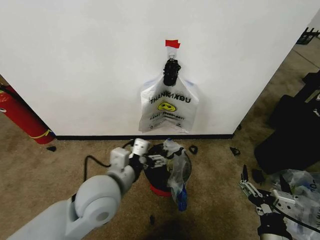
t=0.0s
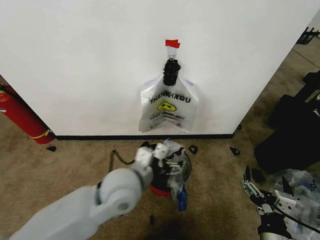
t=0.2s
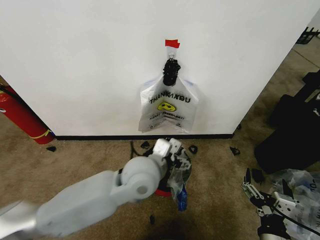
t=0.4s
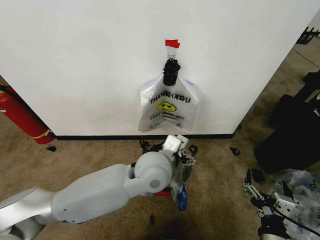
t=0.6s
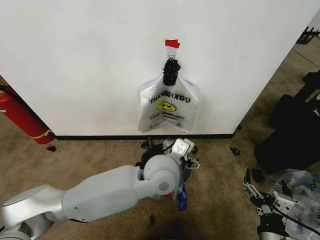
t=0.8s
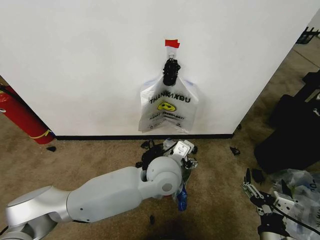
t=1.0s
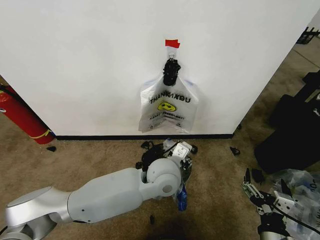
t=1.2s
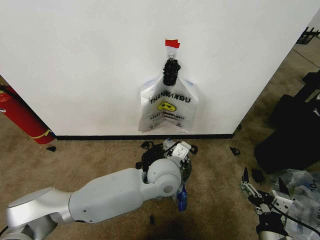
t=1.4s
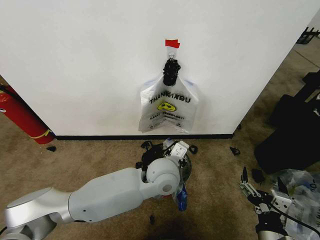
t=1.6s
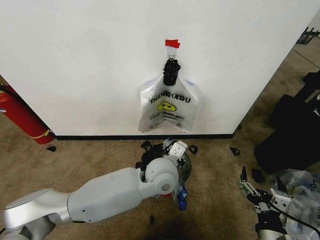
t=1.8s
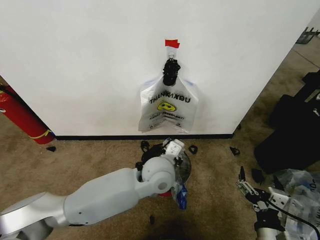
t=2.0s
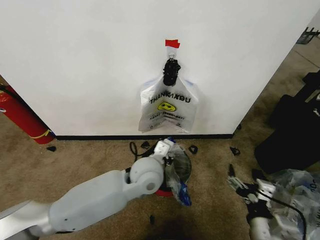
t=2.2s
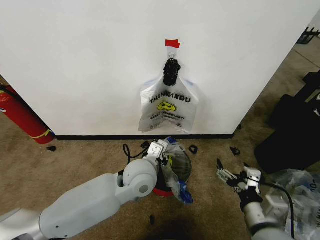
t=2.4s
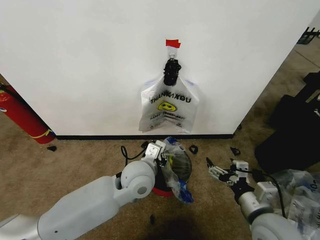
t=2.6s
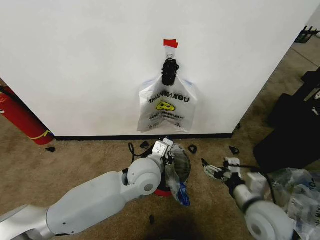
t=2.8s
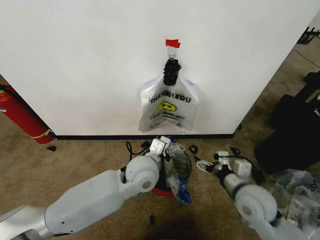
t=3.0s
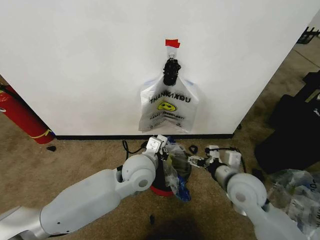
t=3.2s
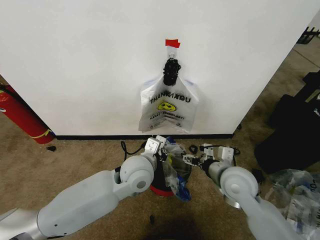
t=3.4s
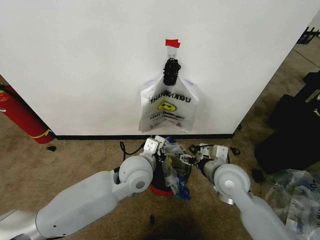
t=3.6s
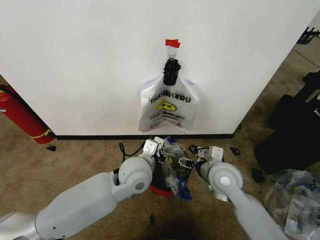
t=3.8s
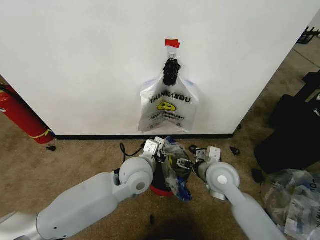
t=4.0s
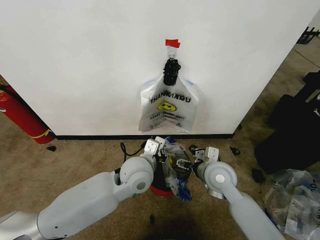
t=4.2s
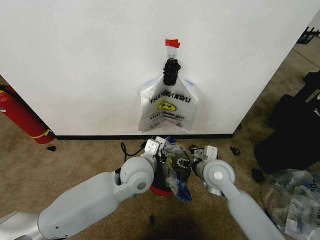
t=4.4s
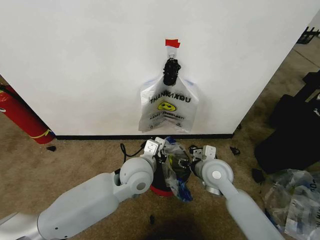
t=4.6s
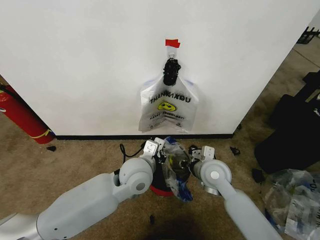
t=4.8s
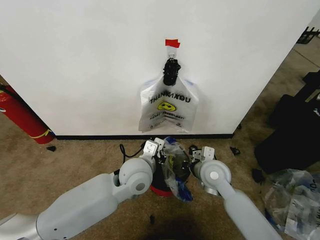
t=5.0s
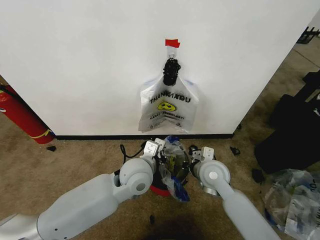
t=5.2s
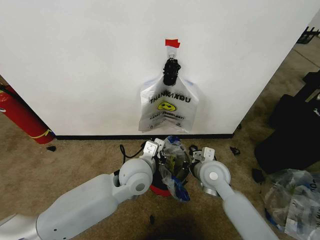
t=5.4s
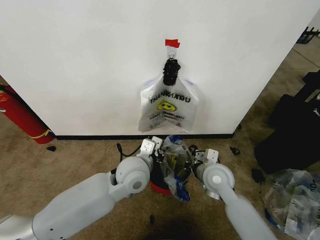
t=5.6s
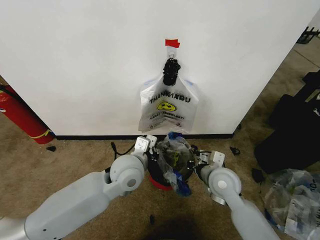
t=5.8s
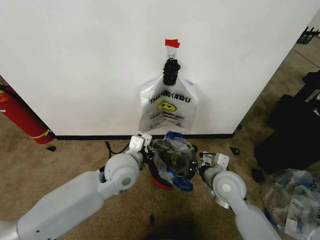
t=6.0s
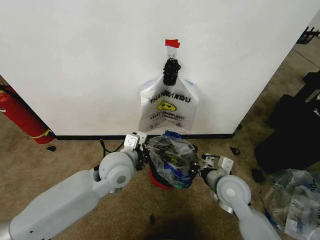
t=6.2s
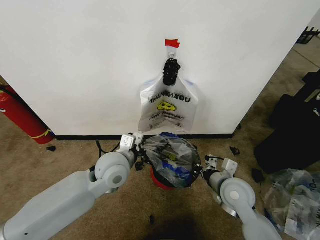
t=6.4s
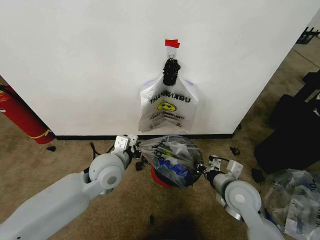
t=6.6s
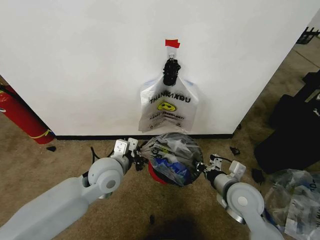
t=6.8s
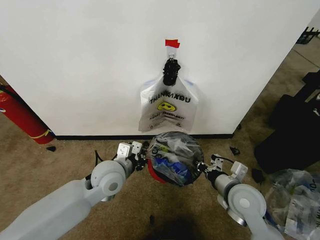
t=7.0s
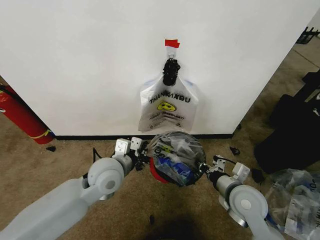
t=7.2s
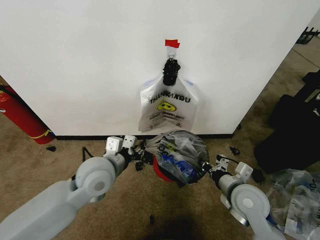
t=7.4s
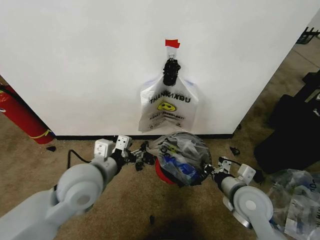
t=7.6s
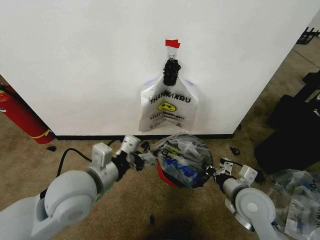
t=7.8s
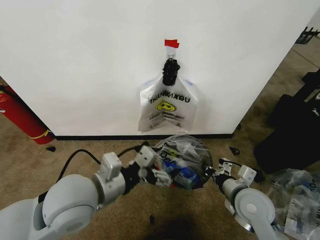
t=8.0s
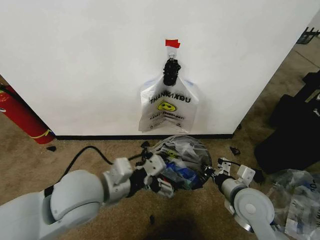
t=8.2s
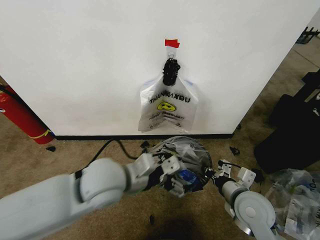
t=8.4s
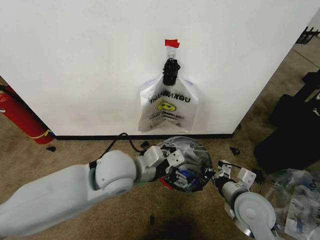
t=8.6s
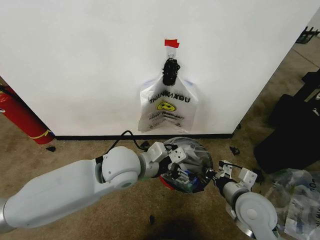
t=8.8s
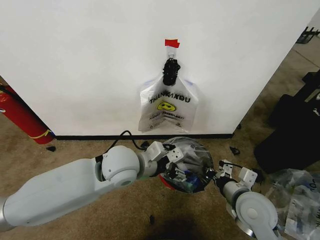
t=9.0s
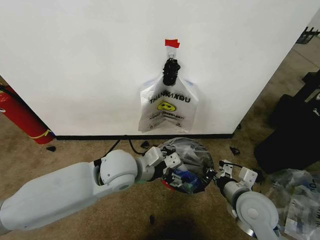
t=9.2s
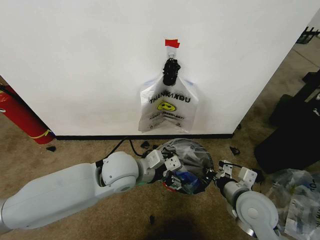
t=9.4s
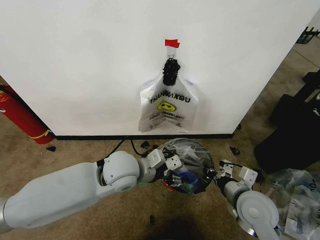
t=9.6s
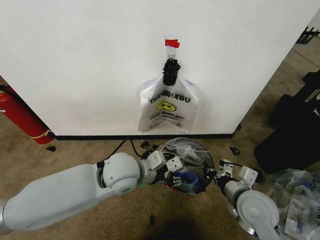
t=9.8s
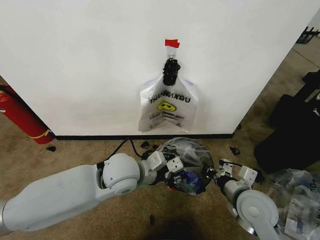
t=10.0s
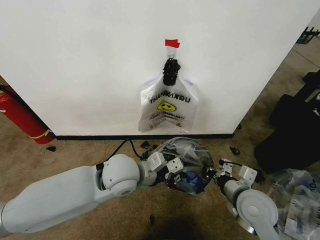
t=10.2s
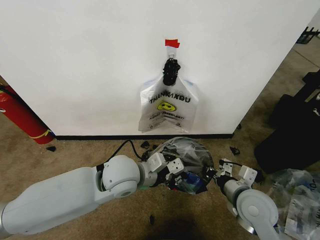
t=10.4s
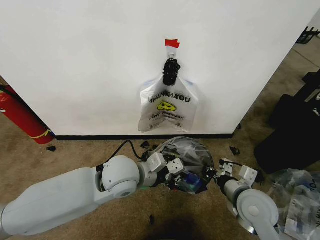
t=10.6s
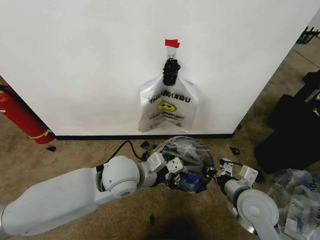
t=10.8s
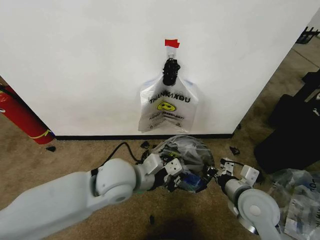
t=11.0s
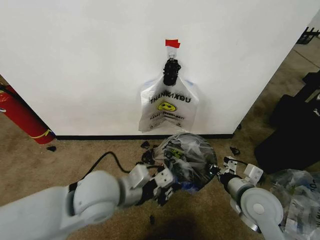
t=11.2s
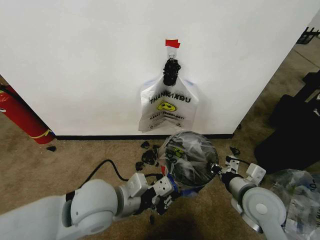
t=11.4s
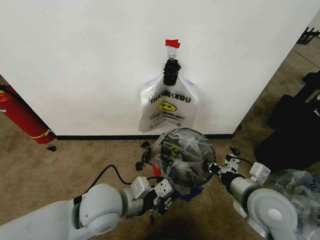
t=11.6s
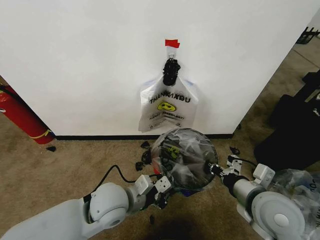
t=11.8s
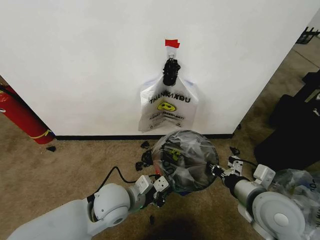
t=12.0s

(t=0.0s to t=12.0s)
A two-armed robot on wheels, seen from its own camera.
Task of the whole recording: Pick up the garbage bag from the wall and place it over the trash bin.
t=0.0s - t=1.6s: The left gripper moves to the right and forward, approximately 15 cm, and closes its fingers.
t=1.6s - t=3.0s: The right gripper travels forward by approximately 15 cm; the left gripper travels to the left by some 5 cm.
t=3.0s - t=4.4s: The right gripper travels forward and to the left by some 10 cm.
t=4.4s - t=6.0s: The right gripper closes up.
t=6.0s - t=7.6s: The right gripper goes approximately 5 cm backward. Meanwhile the left gripper heads to the left and backward, covering roughly 10 cm, and opens up.
t=7.6s - t=9.0s: The left gripper moves to the right and forward, approximately 10 cm.
t=9.0s - t=10.4s: The left gripper closes its fingers.
t=10.4s - t=12.0s: The left gripper moves downward, about 5 cm. The right gripper moves upward, approximately 5 cm.

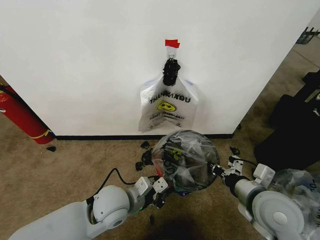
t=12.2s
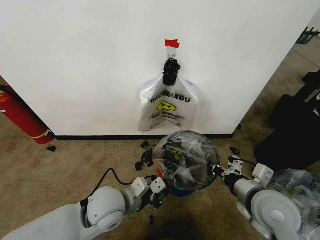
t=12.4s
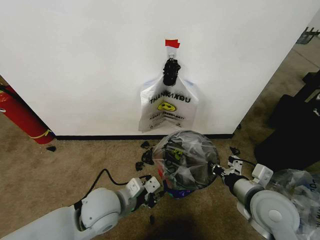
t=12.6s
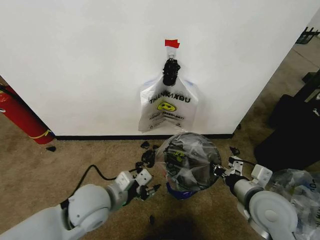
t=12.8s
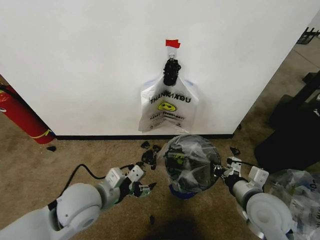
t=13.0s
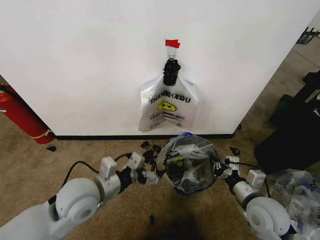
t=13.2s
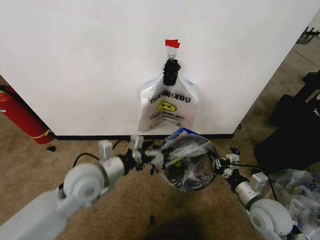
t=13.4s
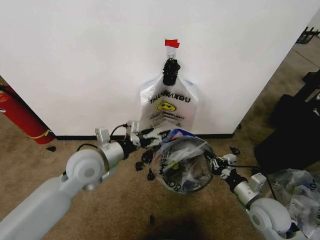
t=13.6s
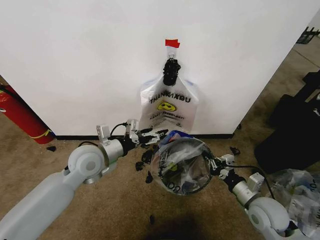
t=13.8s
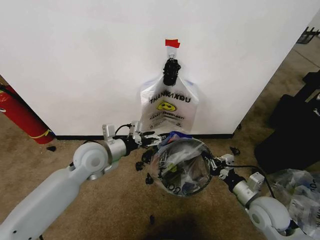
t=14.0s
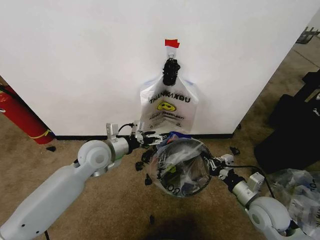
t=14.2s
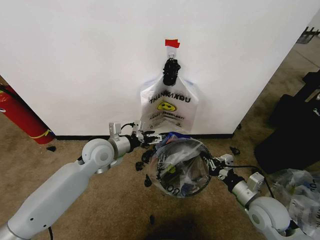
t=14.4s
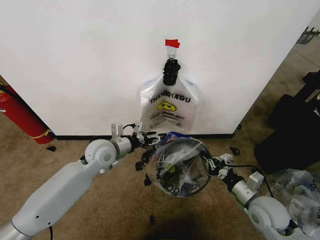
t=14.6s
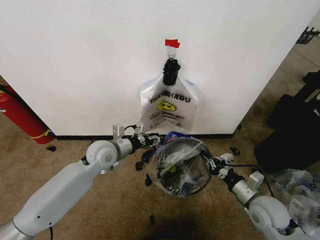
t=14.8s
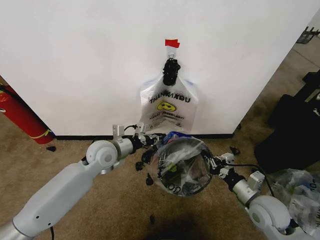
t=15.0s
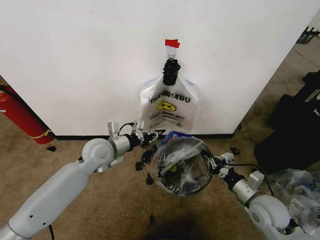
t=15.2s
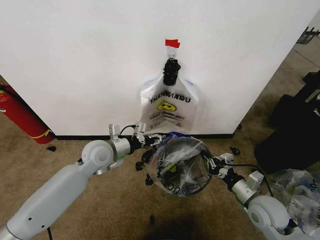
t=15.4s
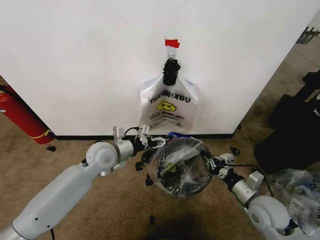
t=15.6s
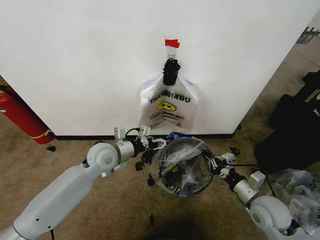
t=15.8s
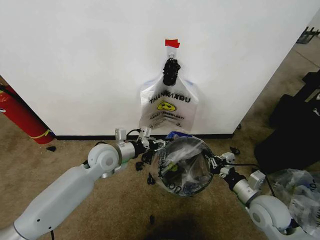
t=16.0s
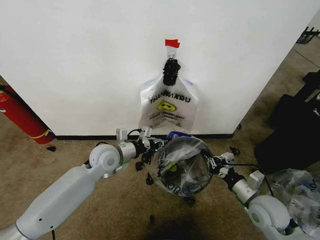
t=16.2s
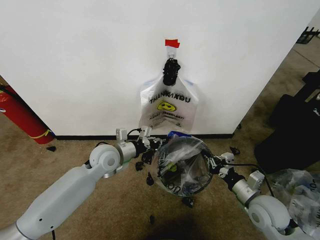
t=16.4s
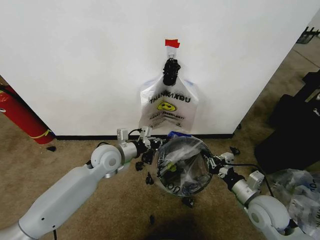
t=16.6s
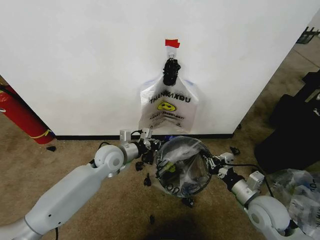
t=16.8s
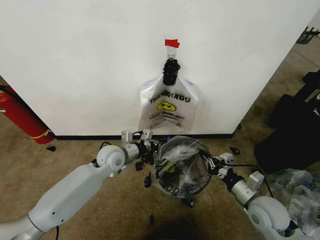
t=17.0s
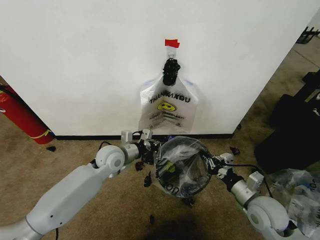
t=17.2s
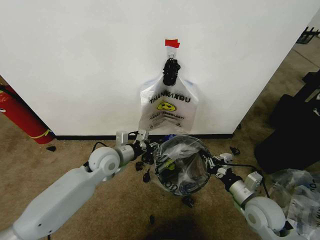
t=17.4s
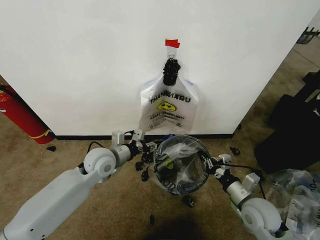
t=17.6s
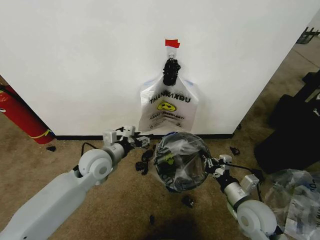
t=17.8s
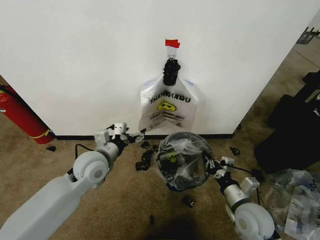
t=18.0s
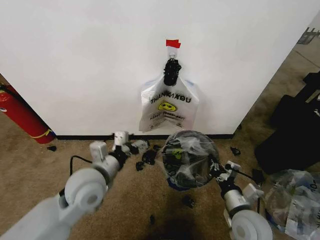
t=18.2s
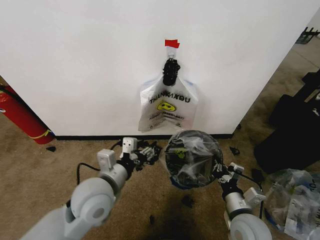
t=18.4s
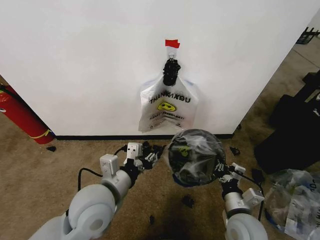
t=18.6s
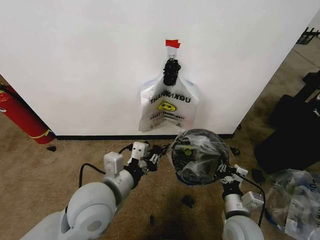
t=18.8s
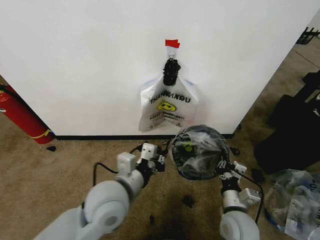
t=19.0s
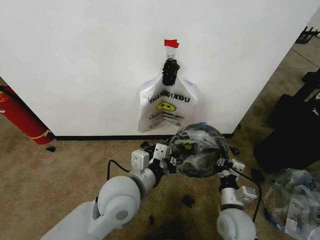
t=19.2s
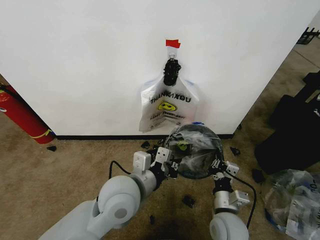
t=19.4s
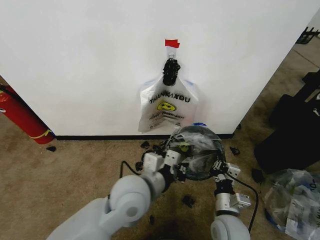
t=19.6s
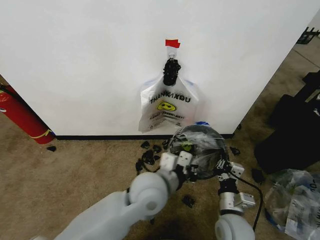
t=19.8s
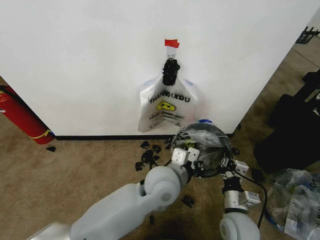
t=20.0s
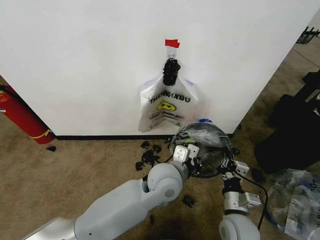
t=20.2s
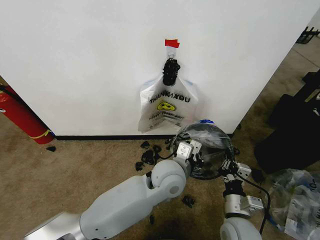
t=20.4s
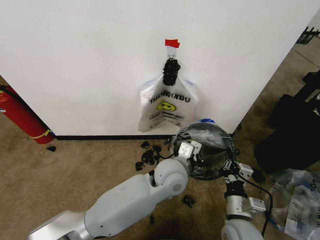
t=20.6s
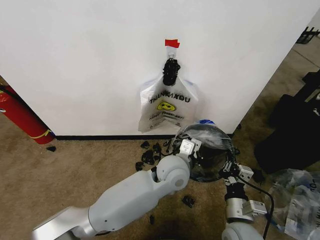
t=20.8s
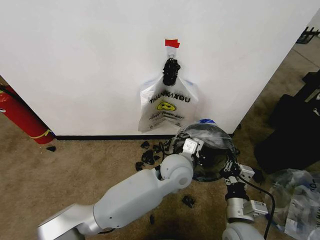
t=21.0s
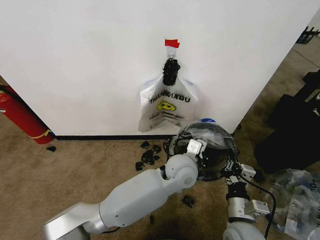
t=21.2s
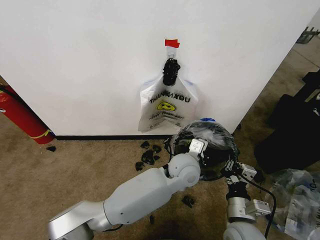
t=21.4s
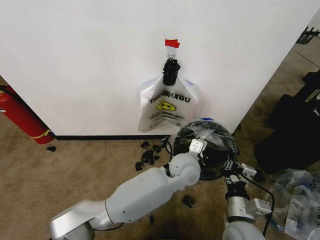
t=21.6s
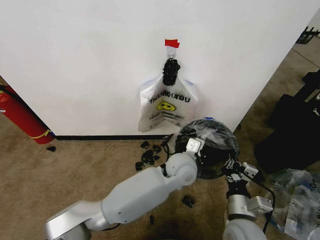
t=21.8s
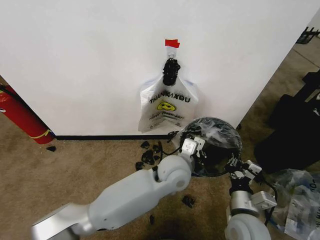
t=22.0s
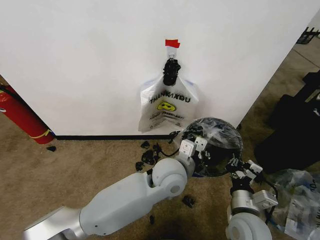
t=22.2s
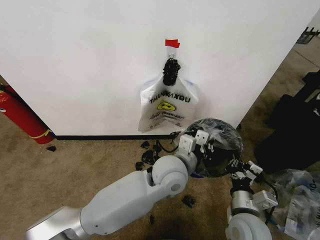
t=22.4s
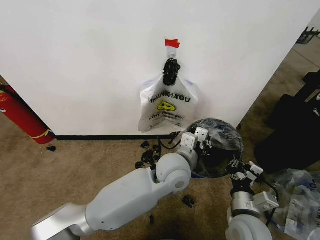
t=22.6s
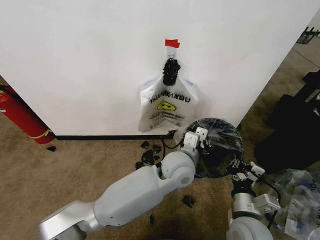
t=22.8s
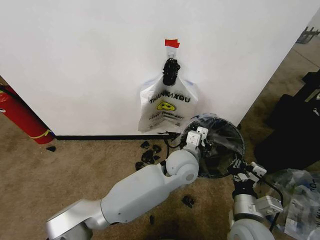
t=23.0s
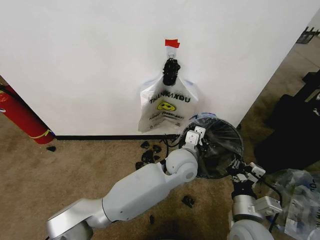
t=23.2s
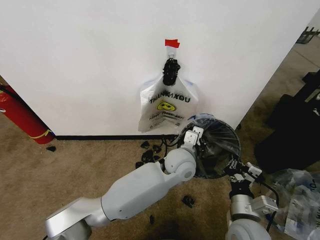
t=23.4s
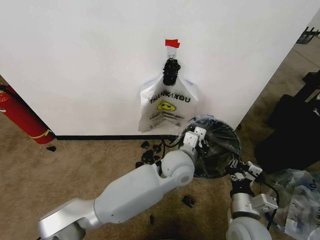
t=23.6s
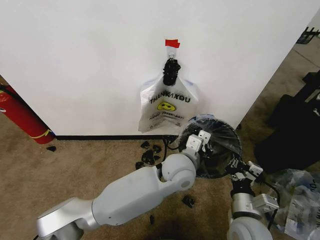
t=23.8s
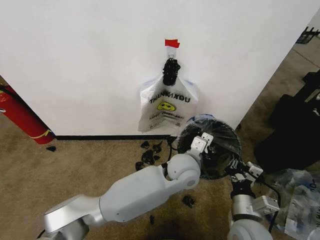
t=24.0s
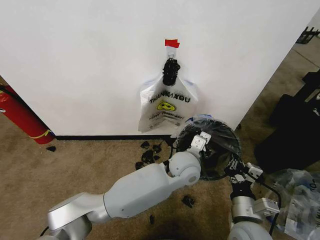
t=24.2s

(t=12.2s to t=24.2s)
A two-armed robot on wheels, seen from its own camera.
Task of the whole recording: Pick up the garbage bag from the wall and place it over the trash bin.
t=12.2s - t=13.8s: The left gripper shifts about 15 cm forward, to the left and upward, and opens up. Meanwhile the right gripper heads downward and to the right, covering about 10 cm.
t=13.8s - t=15.2s: The left gripper travels forward by some 5 cm, and closes.
t=15.2s - t=16.6s: The left gripper opens and closes again.
t=16.6s - t=18.2s: The right gripper moves to the left, some 5 cm. Meanwhile the left gripper travels backward by roughly 10 cm, and opens up.
t=18.2s - t=19.8s: The left gripper heads to the right, covering about 15 cm, and closes up; the right gripper changes place by about 5 cm.
t=19.8s - t=21.2s: The left gripper travels to the right and forward by roughly 10 cm.
t=21.2s - t=22.6s: The left gripper ends up approximately 5 cm from where it was.
t=22.6s - t=24.2s: The left gripper changes place by some 5 cm.
